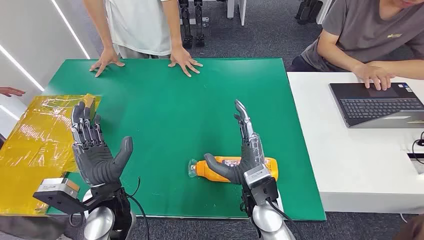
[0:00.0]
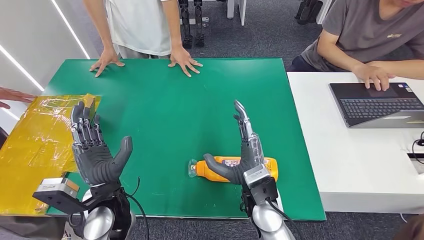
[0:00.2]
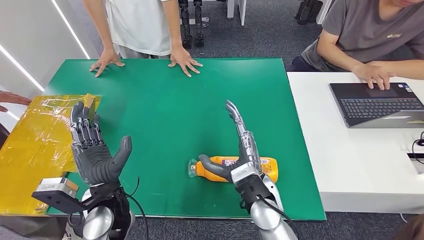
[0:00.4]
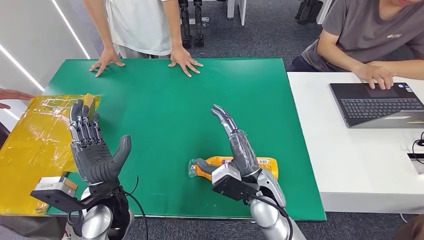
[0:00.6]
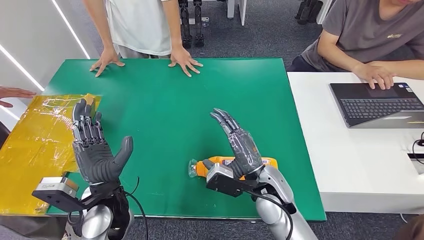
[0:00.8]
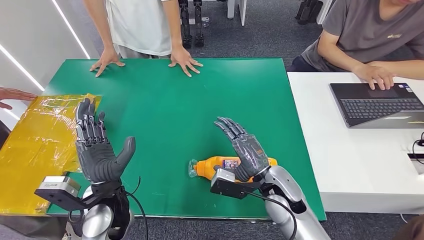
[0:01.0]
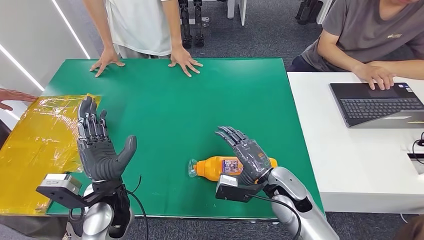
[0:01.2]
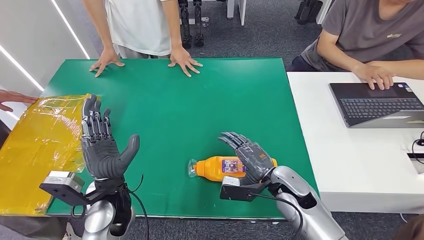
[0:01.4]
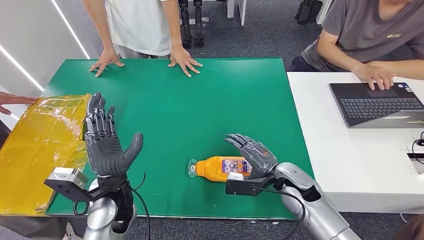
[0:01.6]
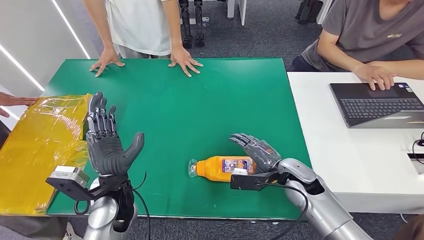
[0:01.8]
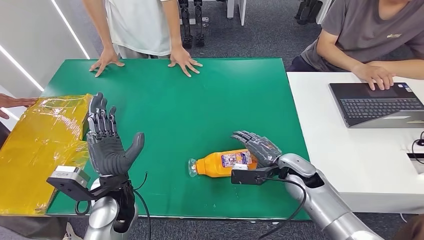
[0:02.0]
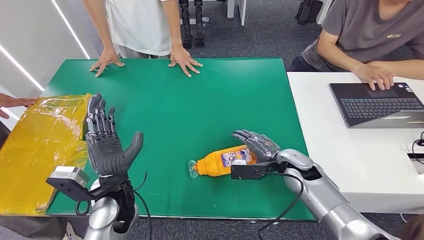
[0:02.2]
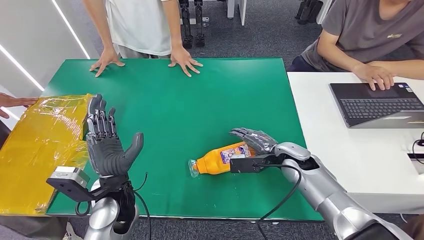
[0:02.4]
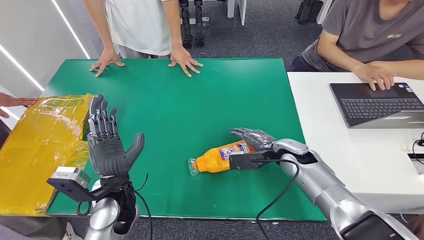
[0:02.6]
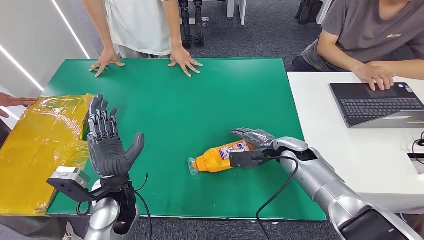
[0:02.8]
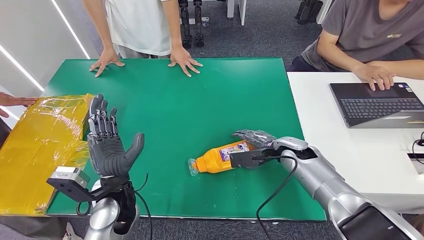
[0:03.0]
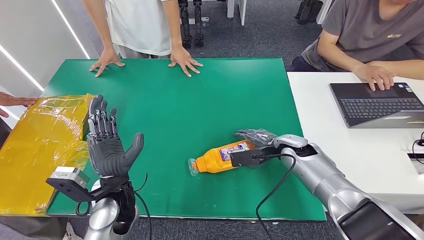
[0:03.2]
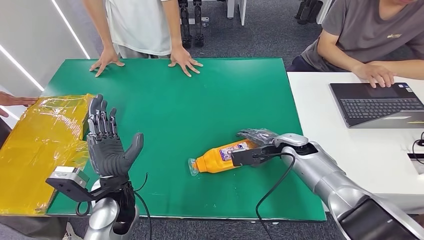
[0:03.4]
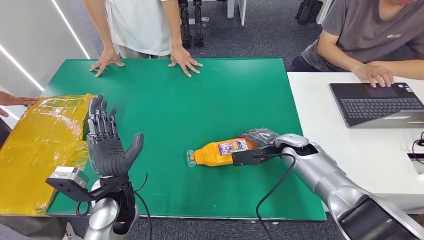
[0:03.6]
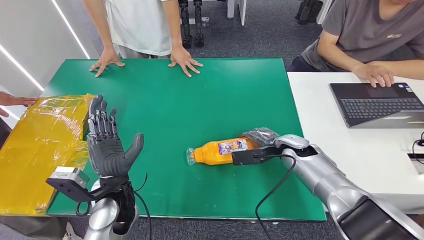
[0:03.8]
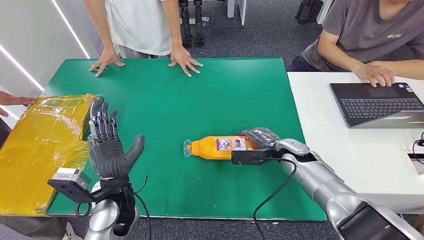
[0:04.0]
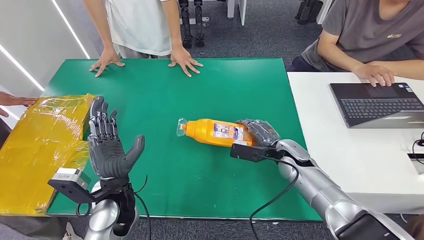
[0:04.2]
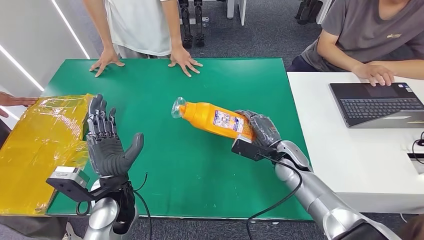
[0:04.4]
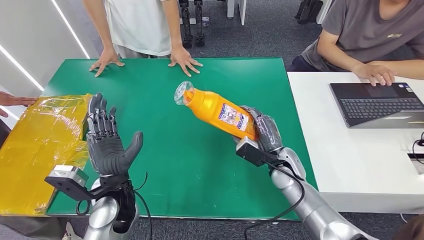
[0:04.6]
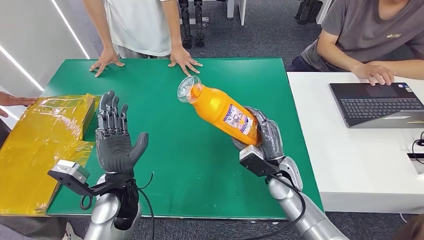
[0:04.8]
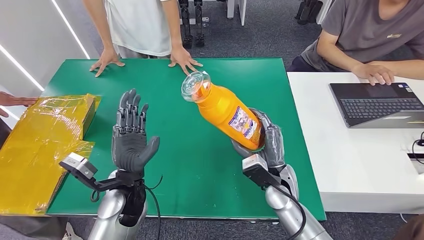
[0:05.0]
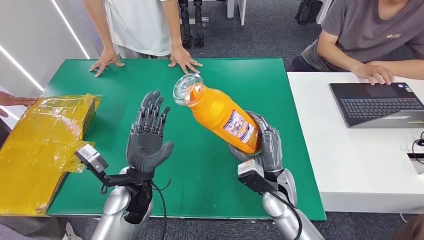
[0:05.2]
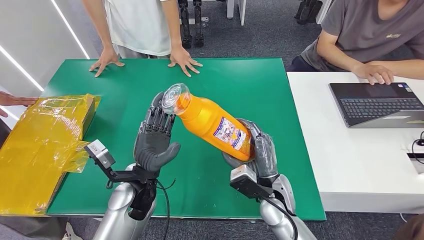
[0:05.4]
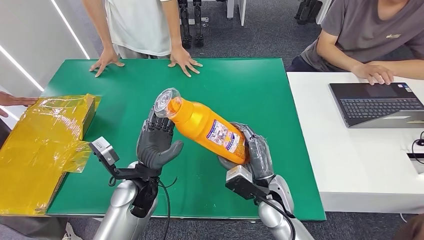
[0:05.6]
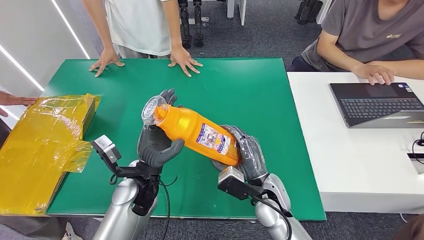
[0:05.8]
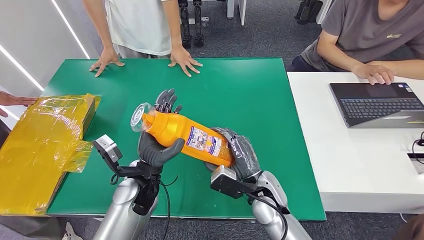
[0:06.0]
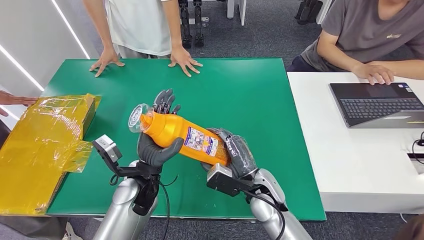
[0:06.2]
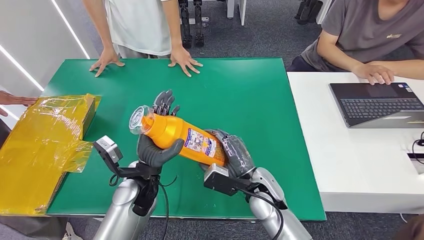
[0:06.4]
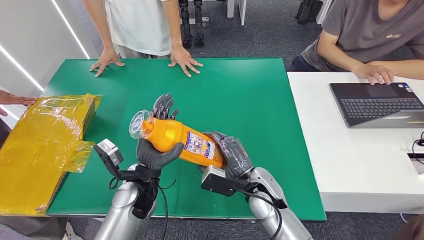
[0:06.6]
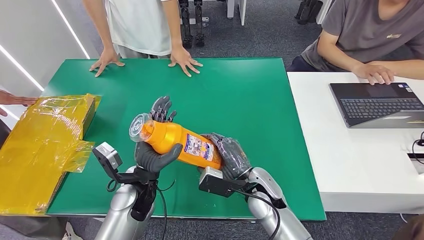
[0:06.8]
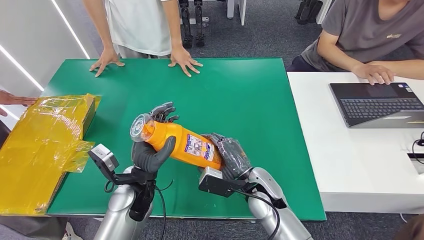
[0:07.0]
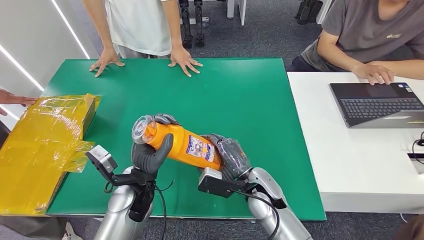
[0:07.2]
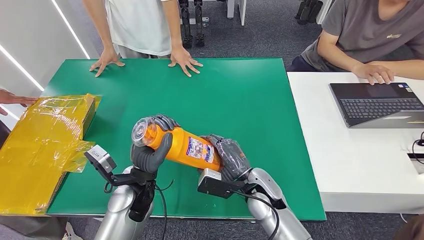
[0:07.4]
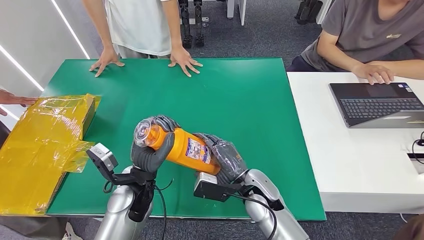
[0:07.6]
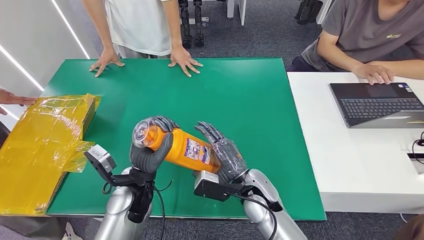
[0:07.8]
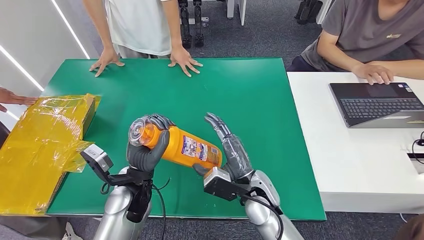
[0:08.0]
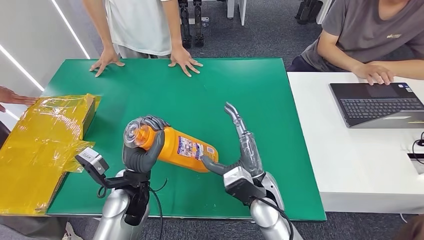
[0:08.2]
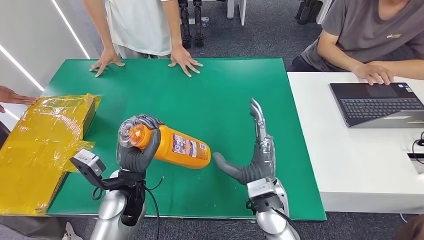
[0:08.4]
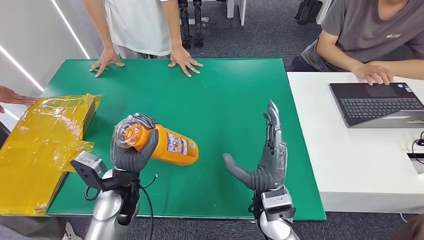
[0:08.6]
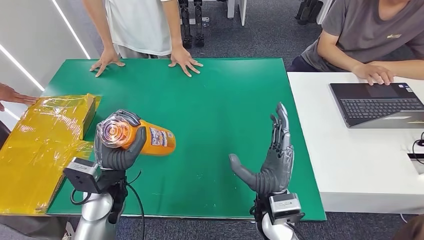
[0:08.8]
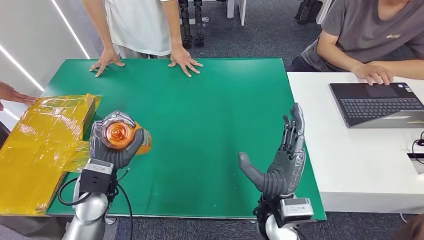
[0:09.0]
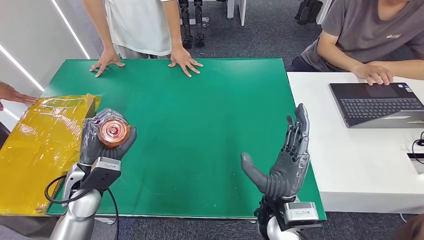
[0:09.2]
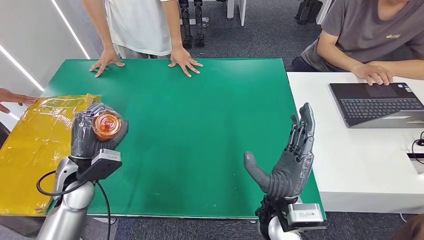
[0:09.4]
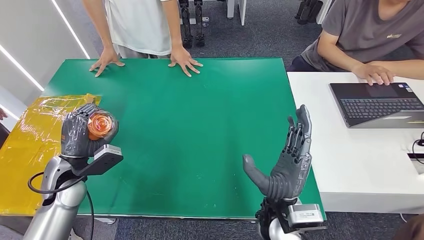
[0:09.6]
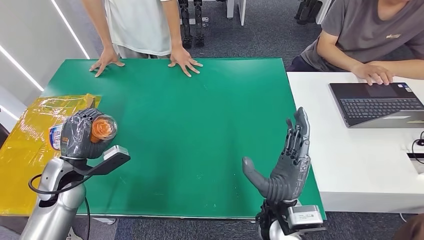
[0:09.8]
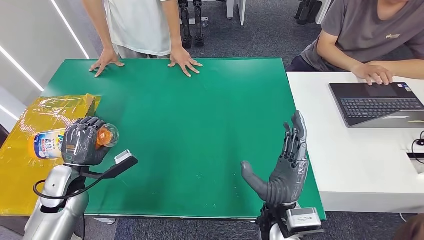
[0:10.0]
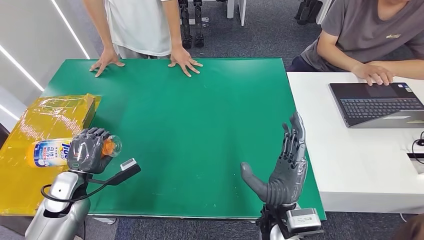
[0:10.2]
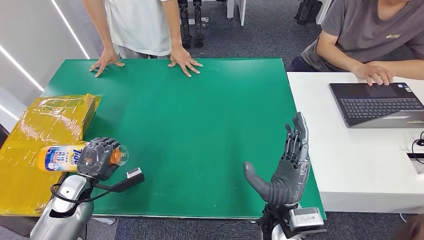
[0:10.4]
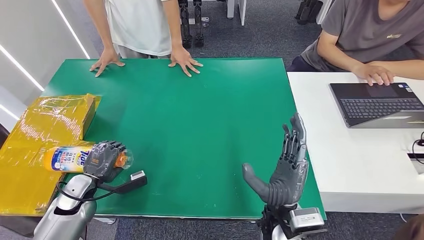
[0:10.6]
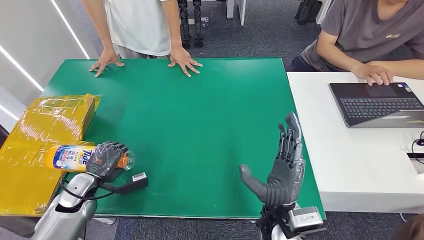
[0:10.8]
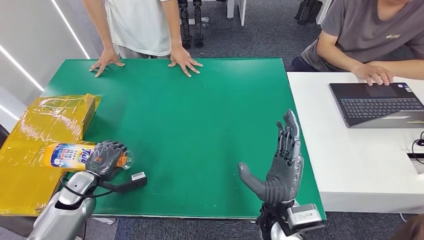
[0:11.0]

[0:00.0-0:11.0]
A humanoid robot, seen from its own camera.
Step, 0:00.0 to 0:06.6: Pick up the bottle from the table.
0:01.6 to 0:03.2: The right hand moves forward, roughly 10 cm.
0:03.2 to 0:04.8: The right hand is displaced backward and to the left by approximately 10 cm.
0:04.8 to 0:06.2: The left hand shifts by roughly 5 cm. The right hand goes some 5 cm to the left.
0:06.2 to 0:07.8: There are only small adjustments of the hands.
0:07.8 to 0:09.4: The left hand is displaced to the left by about 15 cm, while the right hand is displaced backward and upward by about 10 cm.
0:09.4 to 0:11.0: The left hand is displaced downward and to the left by some 15 cm.

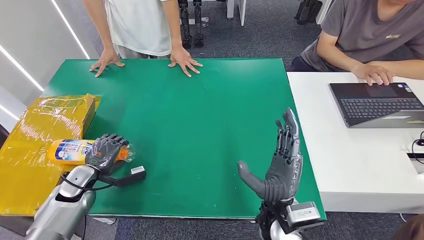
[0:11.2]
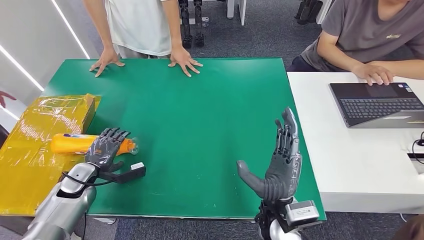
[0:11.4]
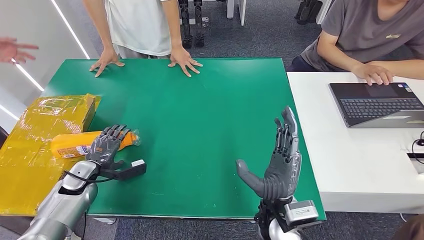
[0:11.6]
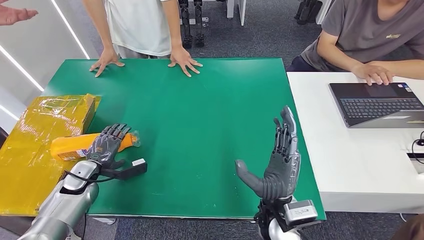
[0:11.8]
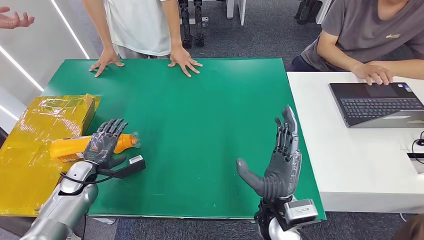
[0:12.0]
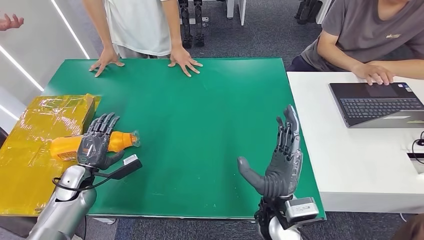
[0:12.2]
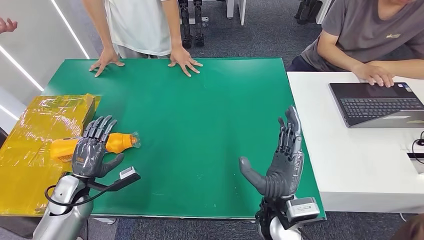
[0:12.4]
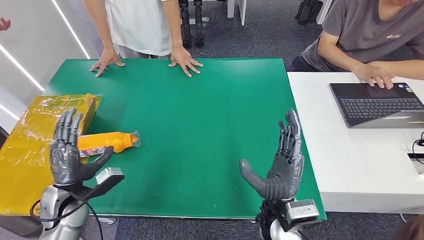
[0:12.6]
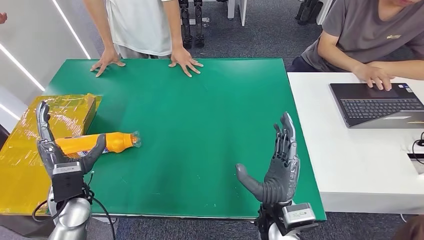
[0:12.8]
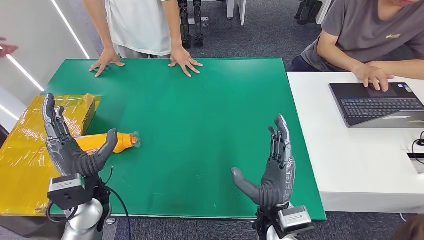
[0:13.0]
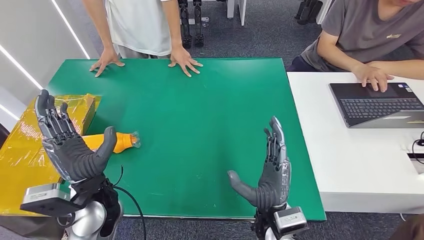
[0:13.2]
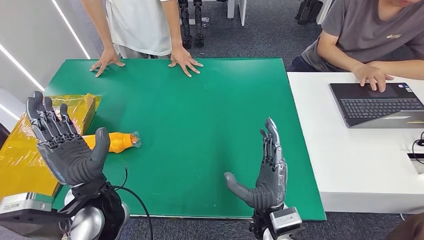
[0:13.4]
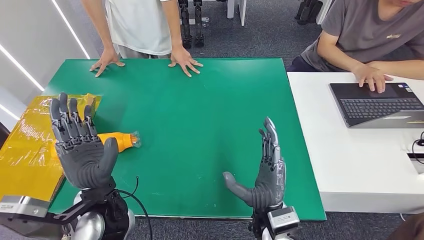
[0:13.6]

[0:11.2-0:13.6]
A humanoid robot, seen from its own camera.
Step, 0:11.2 to 0:13.6: Turn the bottle to the front side.
0:12.4 to 0:13.6: The left hand is displaced to the right and upward by some 20 cm.

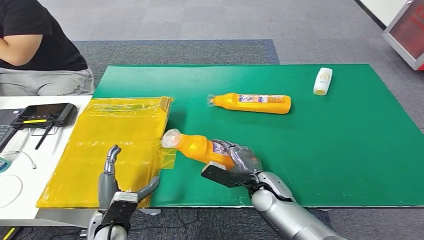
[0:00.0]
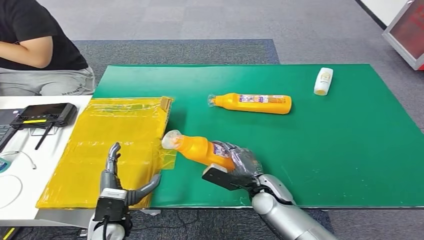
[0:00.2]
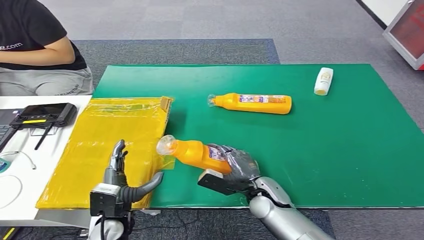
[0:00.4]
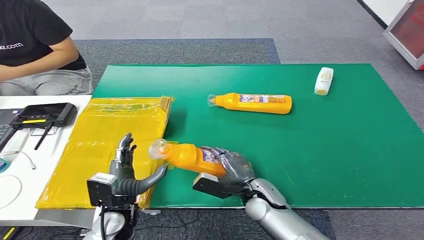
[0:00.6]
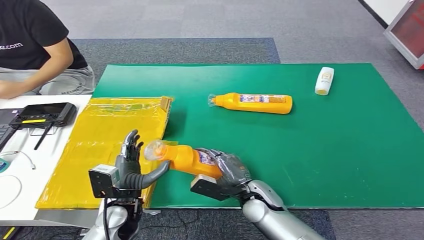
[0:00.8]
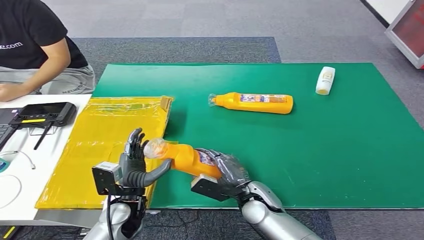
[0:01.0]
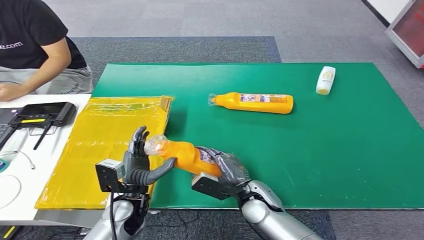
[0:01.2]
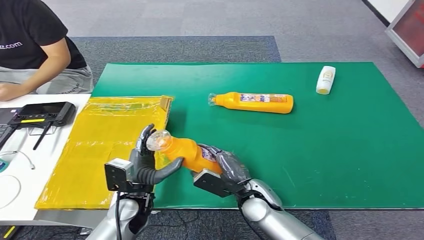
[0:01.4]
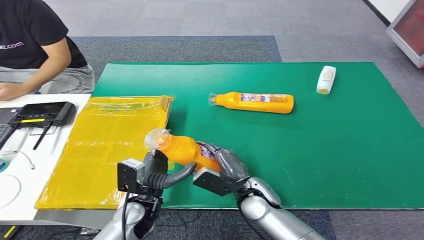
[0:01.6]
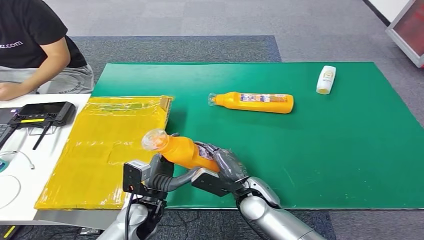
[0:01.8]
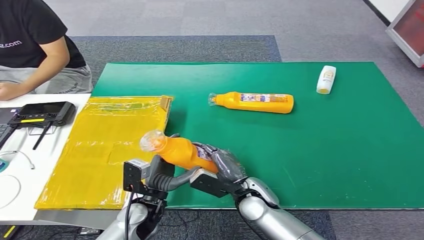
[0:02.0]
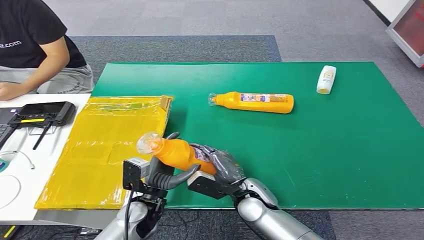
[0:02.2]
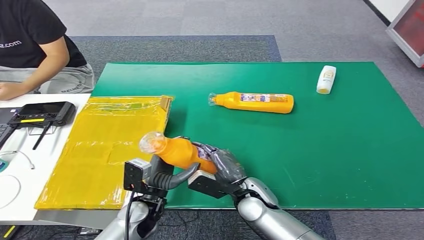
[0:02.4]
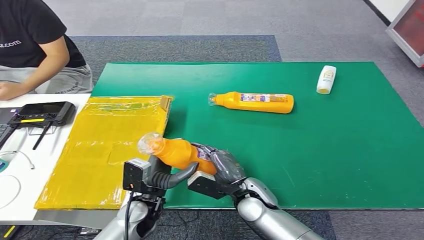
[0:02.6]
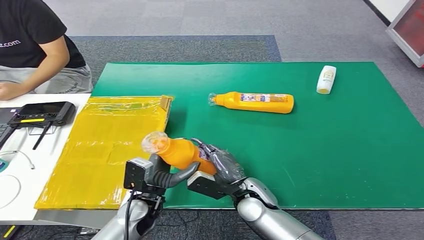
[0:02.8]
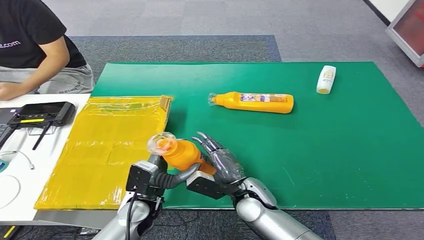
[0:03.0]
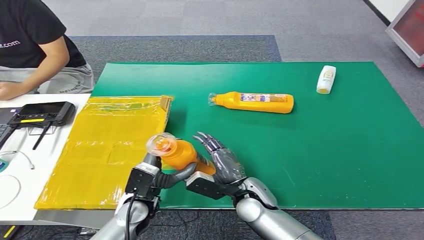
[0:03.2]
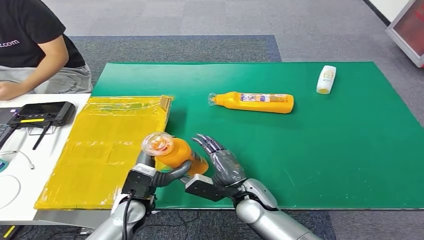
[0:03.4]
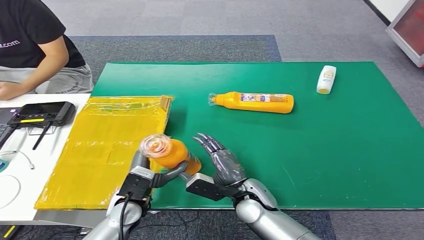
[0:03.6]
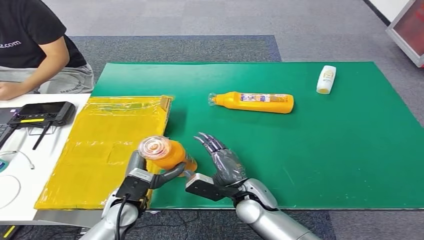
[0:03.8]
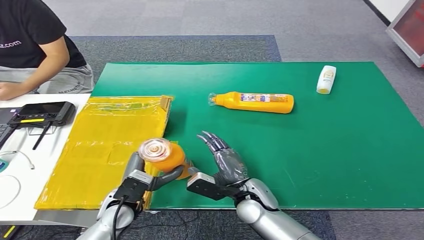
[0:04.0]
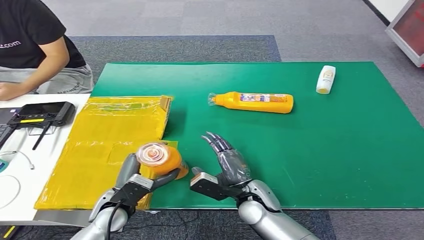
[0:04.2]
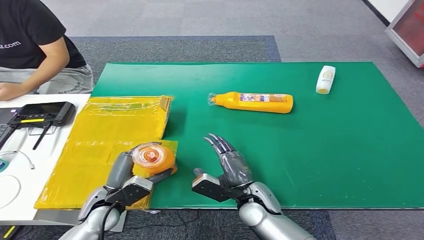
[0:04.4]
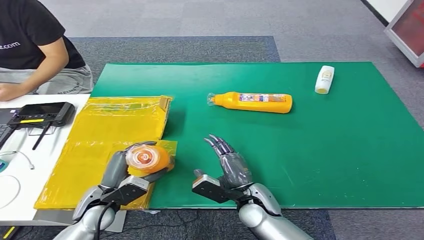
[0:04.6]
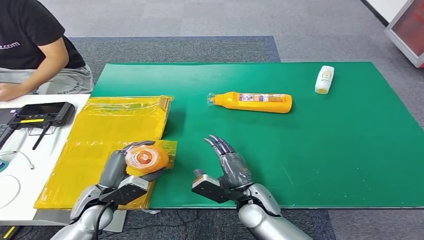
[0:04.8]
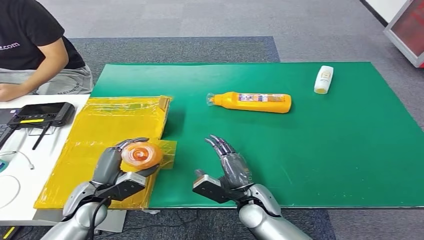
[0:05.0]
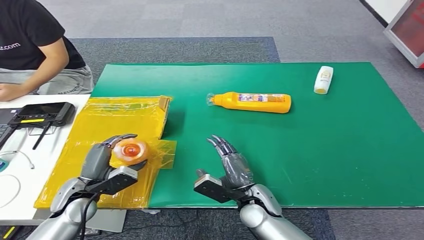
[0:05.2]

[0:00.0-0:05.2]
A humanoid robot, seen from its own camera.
0:03.4 to 0:05.2: The left hand travels to the left by roughly 15 cm.
